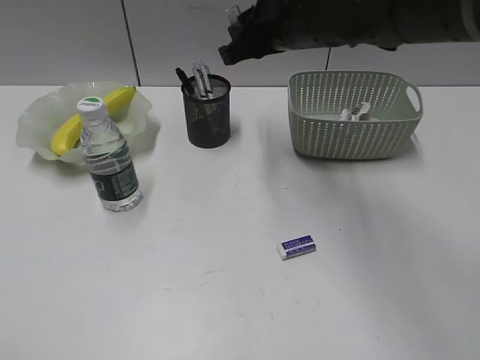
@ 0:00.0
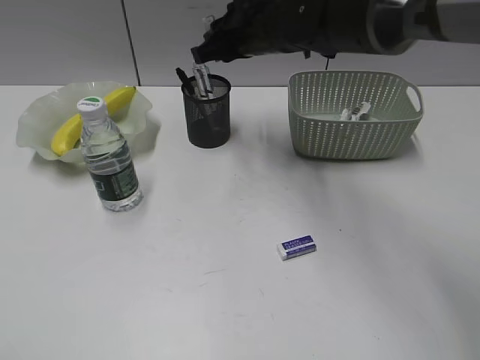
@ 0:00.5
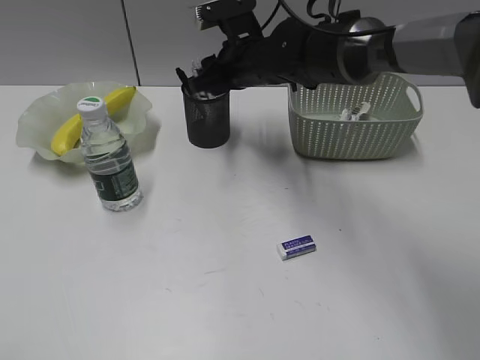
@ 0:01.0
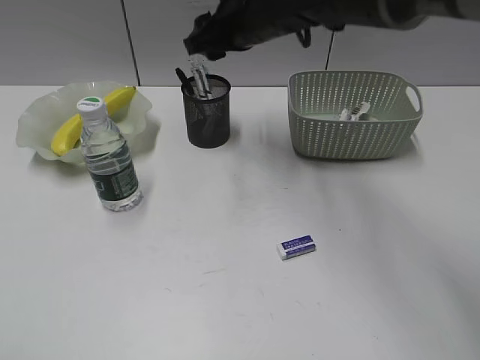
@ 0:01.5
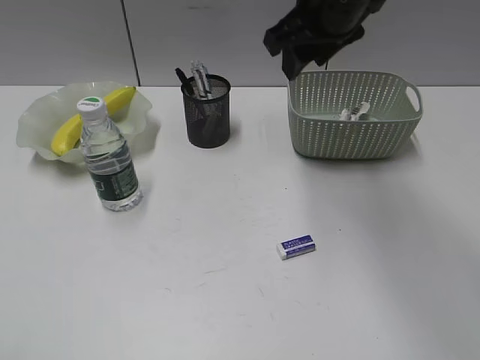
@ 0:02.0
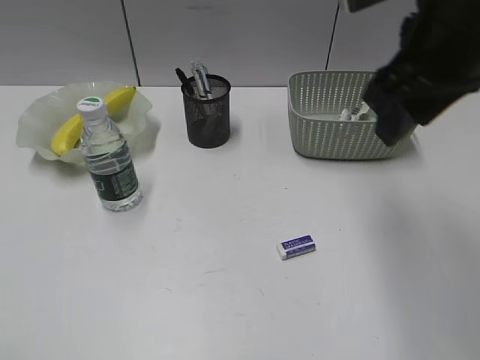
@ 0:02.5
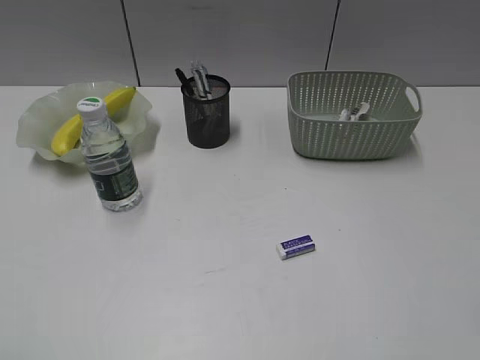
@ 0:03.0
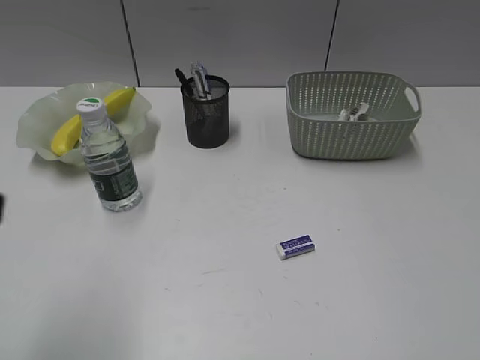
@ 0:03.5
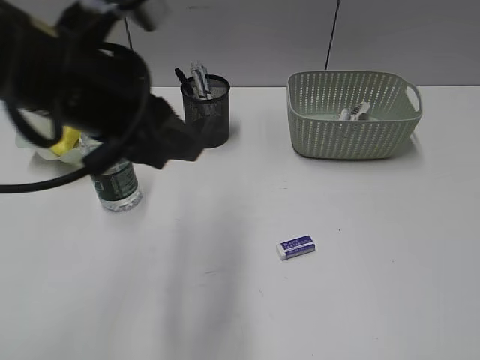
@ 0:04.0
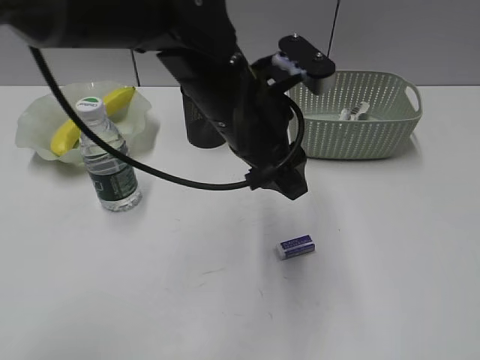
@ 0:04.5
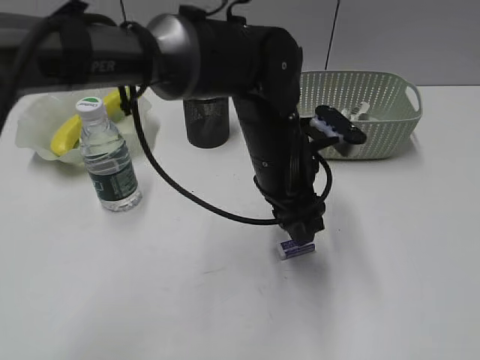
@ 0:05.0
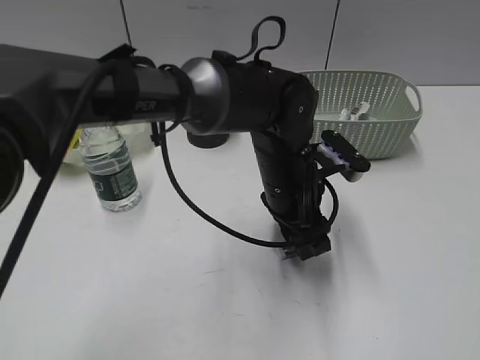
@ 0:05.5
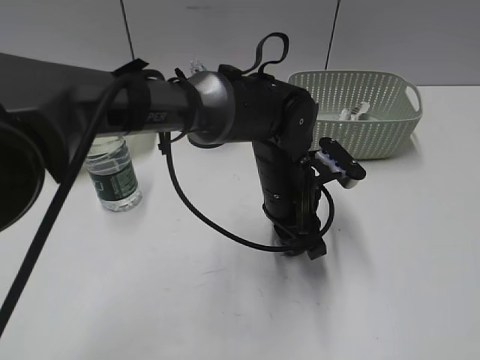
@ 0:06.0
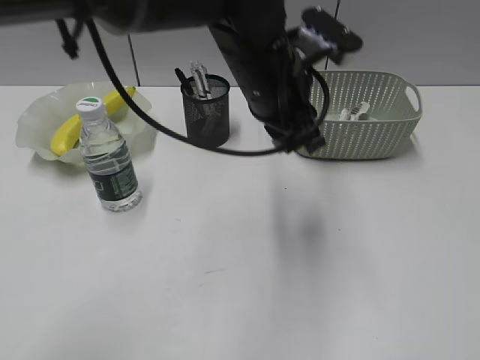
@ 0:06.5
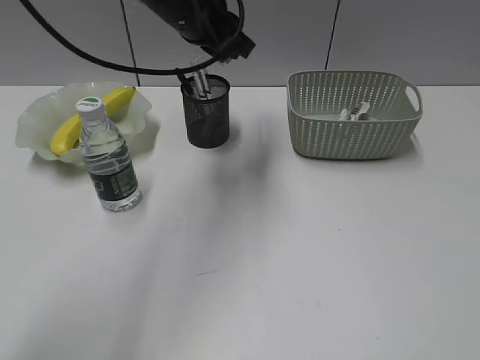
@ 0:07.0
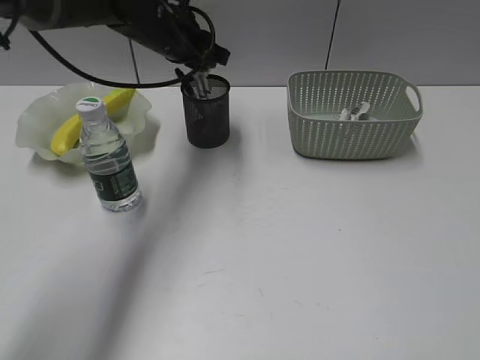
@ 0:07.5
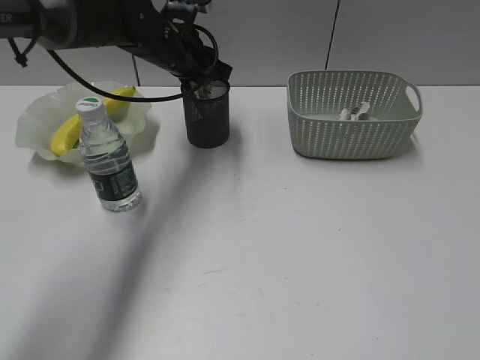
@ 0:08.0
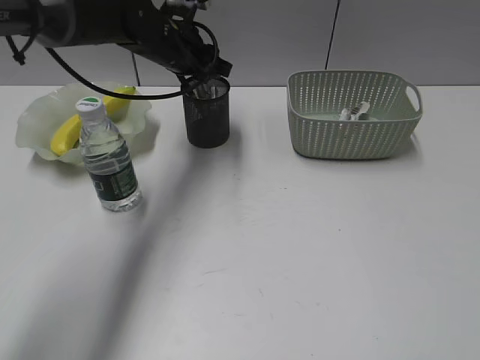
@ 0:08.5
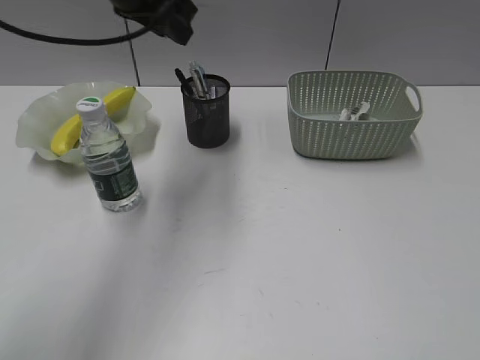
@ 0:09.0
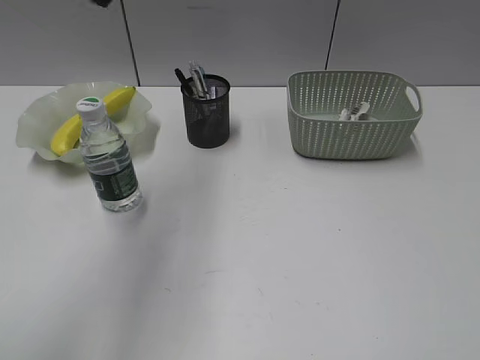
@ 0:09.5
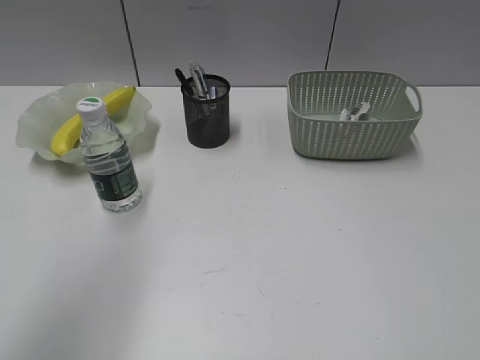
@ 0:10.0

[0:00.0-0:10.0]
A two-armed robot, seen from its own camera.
Step, 0:01.5 to 0:05.5: Grasp the eraser with left gripper.
Step, 0:06.0 to 0:08.5: Place the eraser in pen holder with left gripper.
0:00.0 to 0:02.0: The right gripper goes downward and returns, roughly 10 cm each way, and opens up.
0:02.0 to 0:04.0: The left gripper is displaced forward and to the right by about 30 cm; the right gripper heads backward and to the right, covering some 50 cm.
0:04.0 to 0:06.0: The left gripper travels to the right and downward by some 25 cm.
0:06.0 to 0:08.0: The left gripper travels forward, to the left and upward by about 25 cm.
0:08.0 to 0:10.0: The left gripper is displaced backward, upward and to the left by roughly 40 cm.

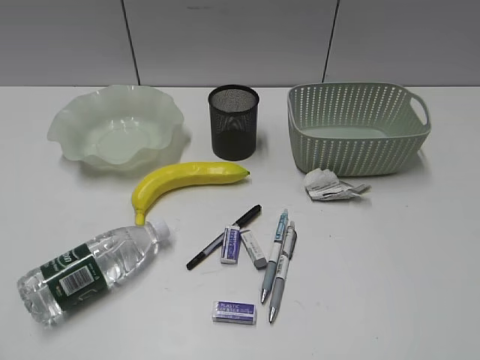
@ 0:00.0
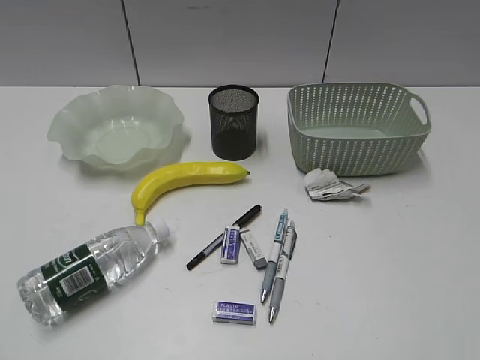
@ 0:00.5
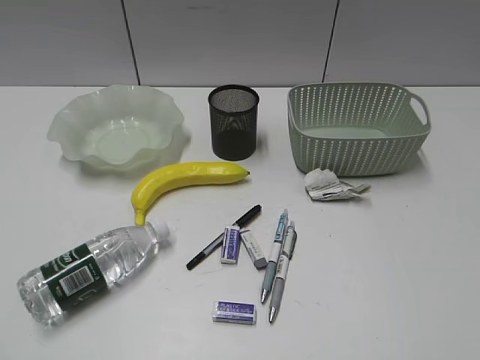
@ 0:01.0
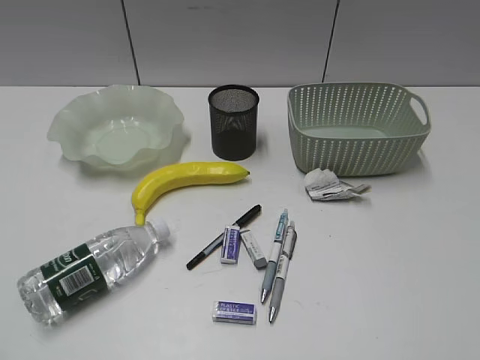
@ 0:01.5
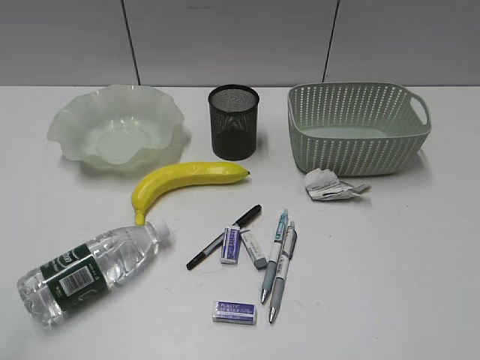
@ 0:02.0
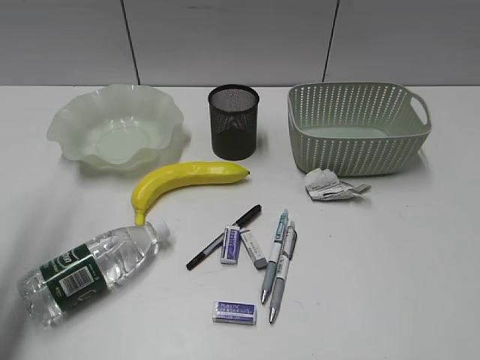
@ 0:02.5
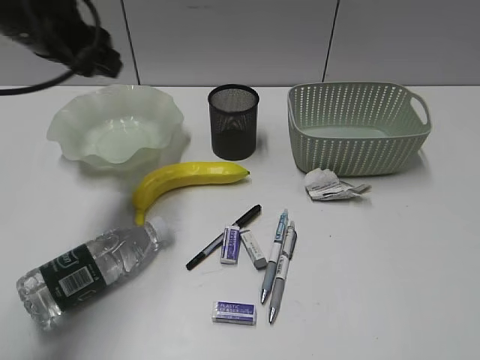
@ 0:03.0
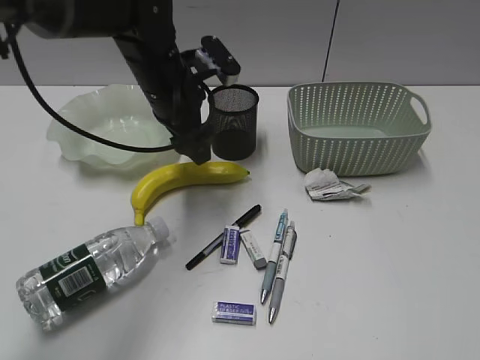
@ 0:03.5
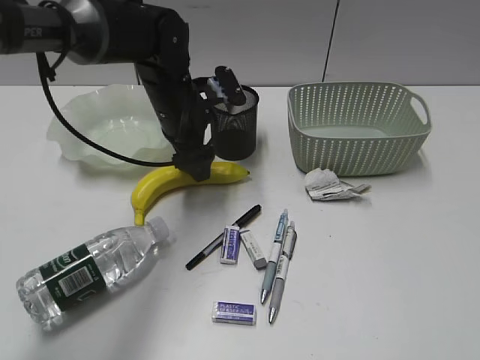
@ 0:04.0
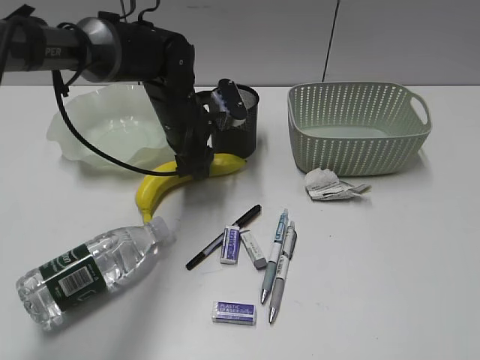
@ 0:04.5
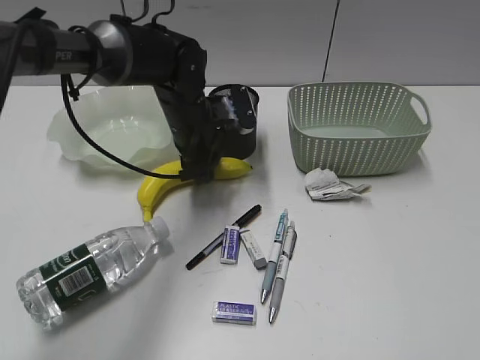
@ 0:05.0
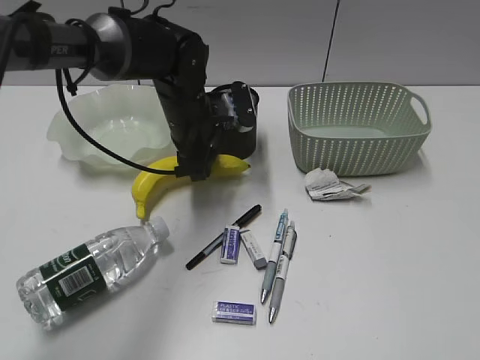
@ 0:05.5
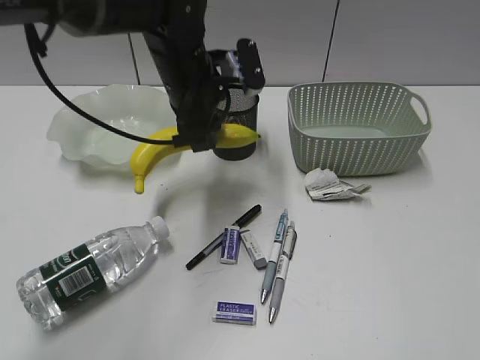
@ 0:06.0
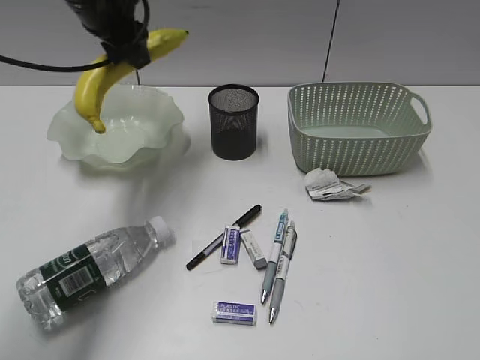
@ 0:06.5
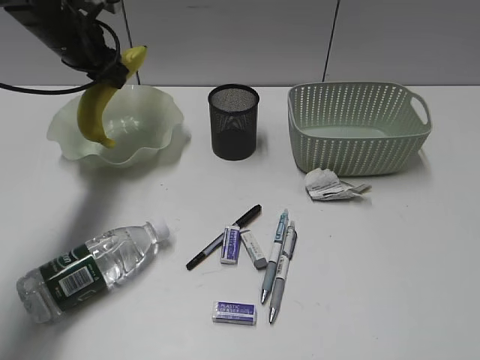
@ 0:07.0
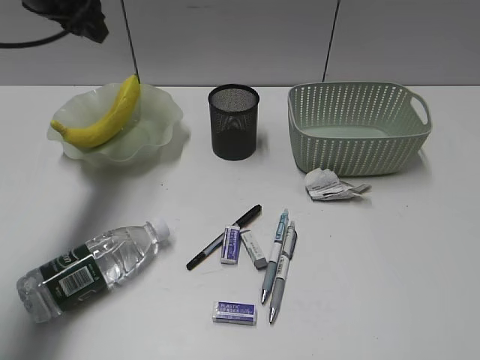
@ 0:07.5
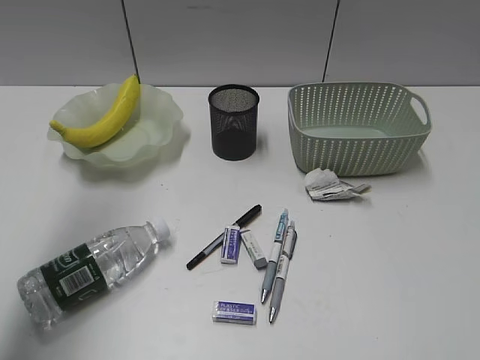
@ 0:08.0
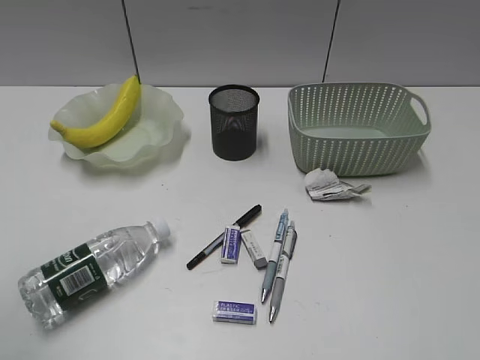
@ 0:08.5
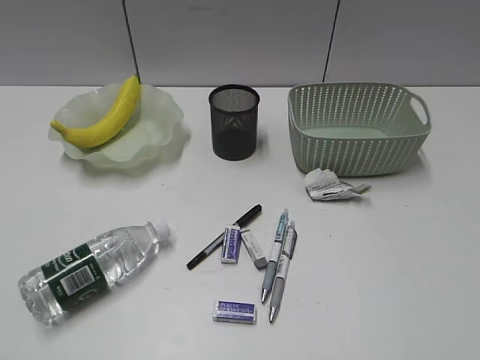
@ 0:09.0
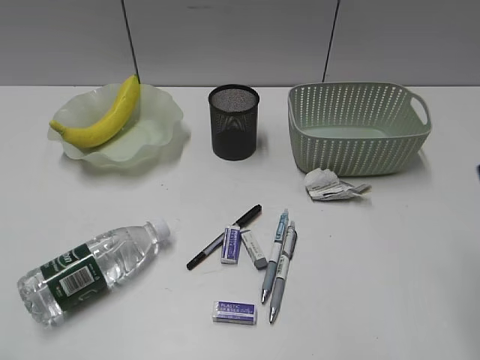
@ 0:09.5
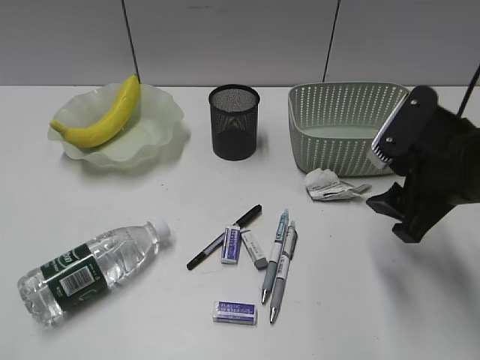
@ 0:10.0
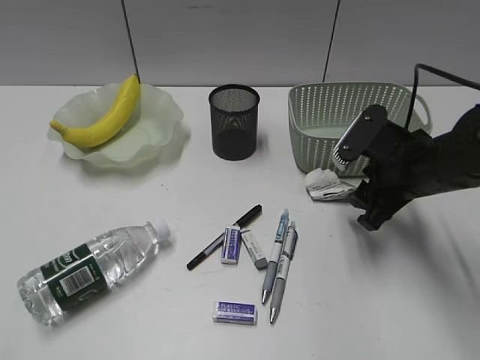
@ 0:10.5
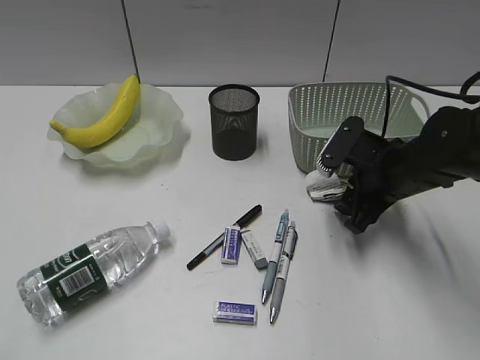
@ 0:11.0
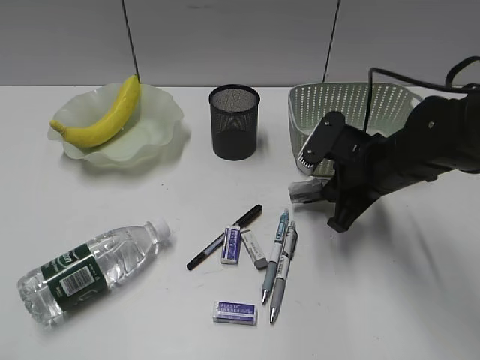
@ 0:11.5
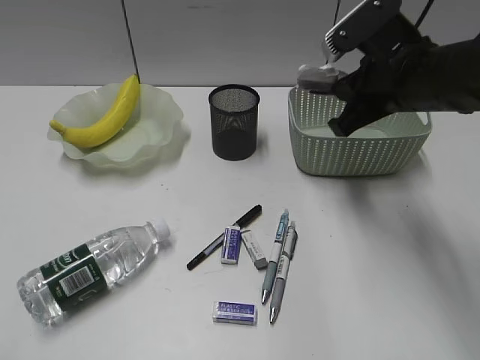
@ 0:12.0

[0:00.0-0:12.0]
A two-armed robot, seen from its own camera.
Step, 0:02.0 to 0:04.5: Grasp the banana with left gripper.
Step, 0:05.0 to 0:07.0: Place the banana in the plate with left gripper.
Step, 0:07.5 to 0:11.0: Grasp the waste paper with right gripper.
0:02.0 to 0:04.0: The left gripper goes about 50 cm forward, to the right and downward, and opens.
0:04.0 to 0:06.0: The left gripper goes some 5 cm upward, and closes up.
0:06.0 to 0:08.0: The left gripper moves up and down over roughly 25 cm, changing direction 2 times.
0:08.0 to 0:10.0: The right gripper goes approximately 25 cm forward, while the left gripper moves backward and downward, roughly 35 cm.
0:10.0 to 0:12.0: The right gripper shifts approximately 10 cm forward, reaches about 10 cm downward, then returns, and closes up.

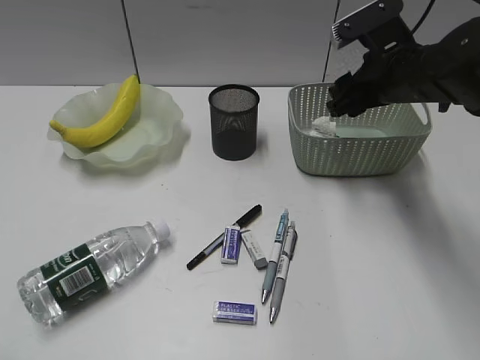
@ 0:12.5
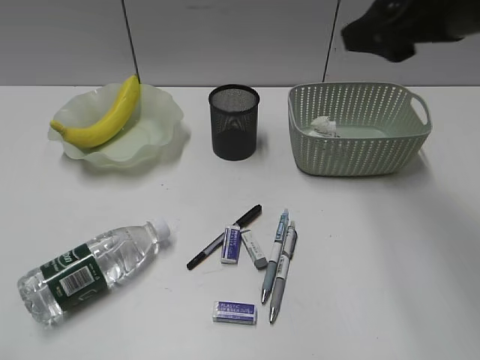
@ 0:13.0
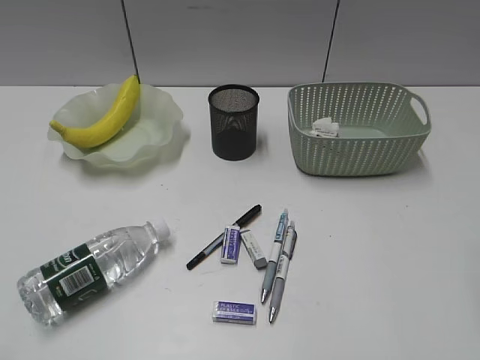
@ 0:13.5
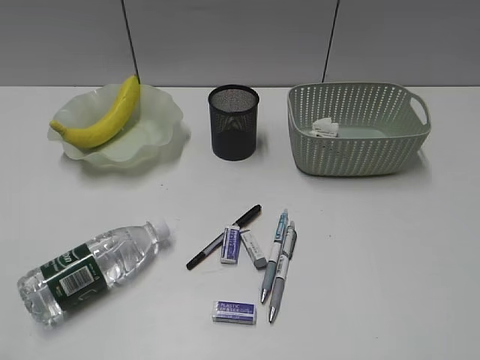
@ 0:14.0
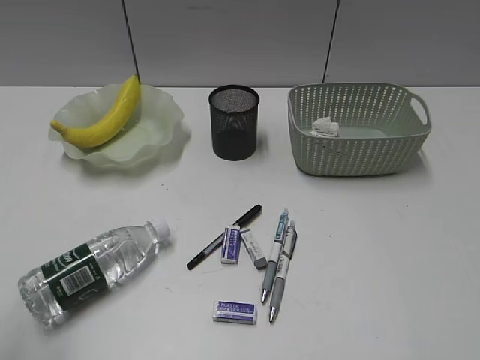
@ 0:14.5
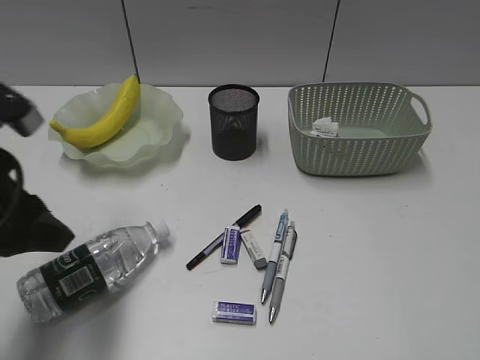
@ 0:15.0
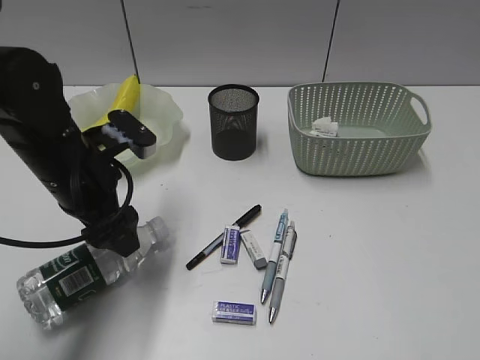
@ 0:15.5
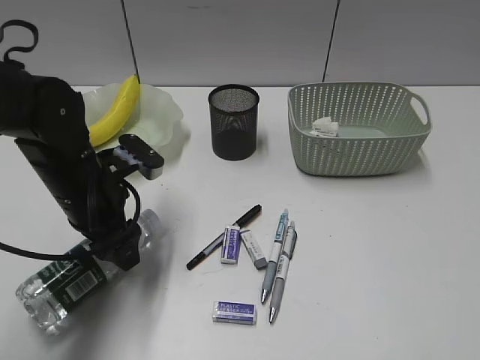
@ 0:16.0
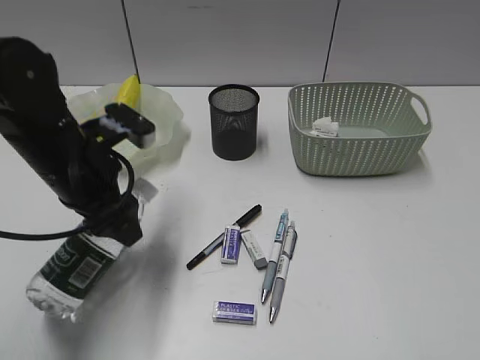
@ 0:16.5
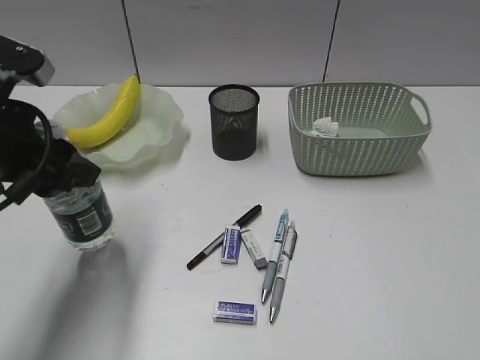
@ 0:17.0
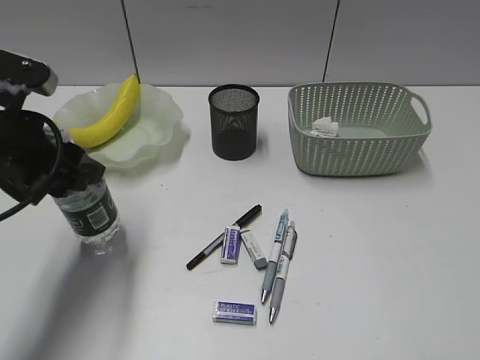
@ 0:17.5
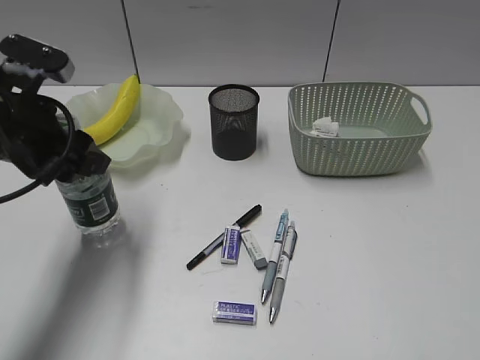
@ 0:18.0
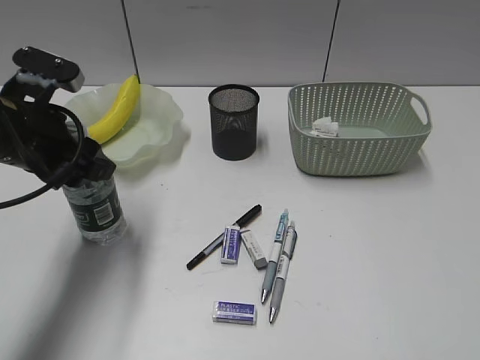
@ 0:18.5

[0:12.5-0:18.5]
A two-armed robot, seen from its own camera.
Step, 0:13.0 to 0:16.0: Grasp the bottle with left gripper.
0:12.5 to 0:14.5: The right gripper shifts approximately 40 cm backward; the left gripper travels forward by about 5 cm.
0:14.5 to 0:16.5: The left gripper heads forward, to the right and downward, covering roughly 30 cm.